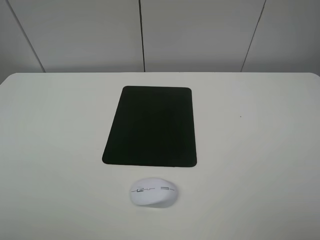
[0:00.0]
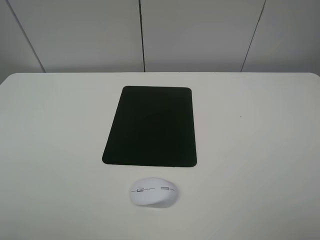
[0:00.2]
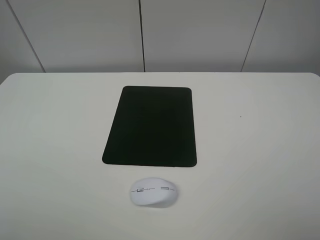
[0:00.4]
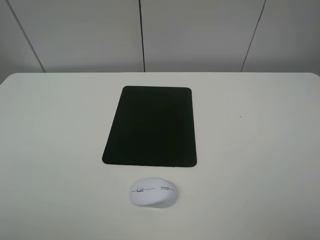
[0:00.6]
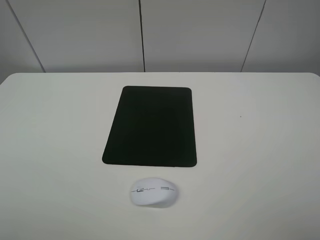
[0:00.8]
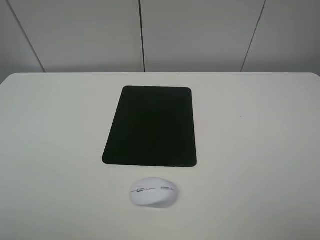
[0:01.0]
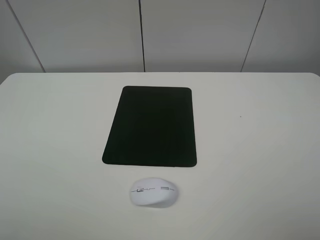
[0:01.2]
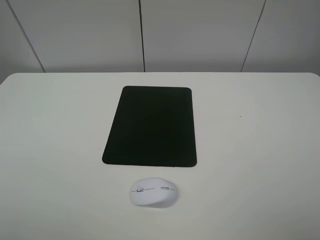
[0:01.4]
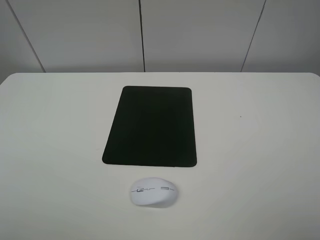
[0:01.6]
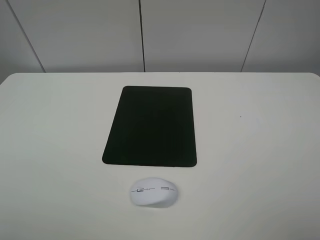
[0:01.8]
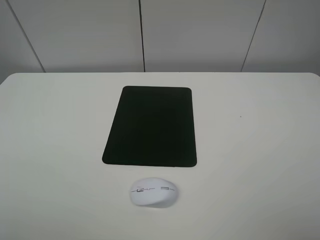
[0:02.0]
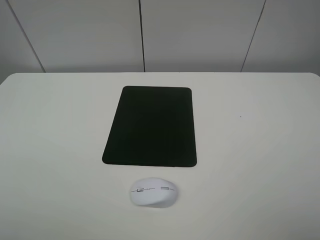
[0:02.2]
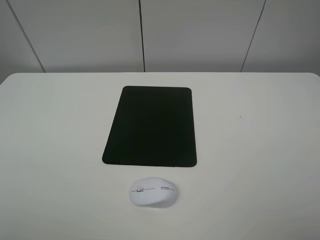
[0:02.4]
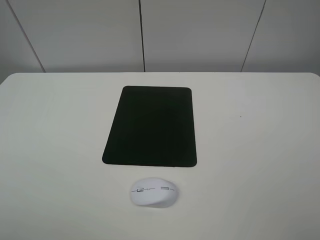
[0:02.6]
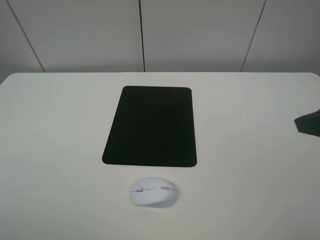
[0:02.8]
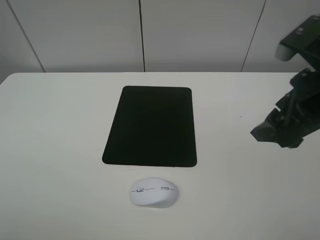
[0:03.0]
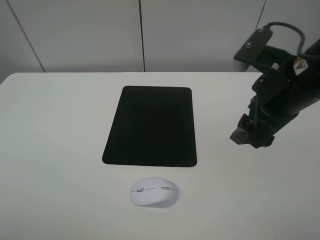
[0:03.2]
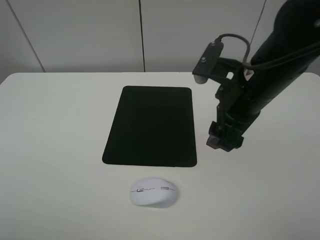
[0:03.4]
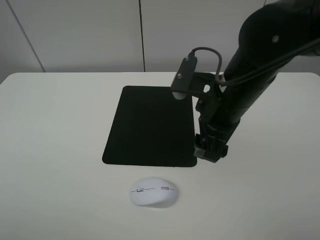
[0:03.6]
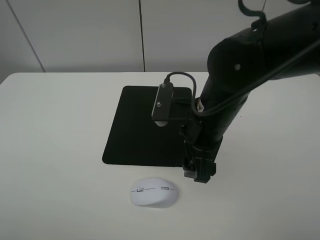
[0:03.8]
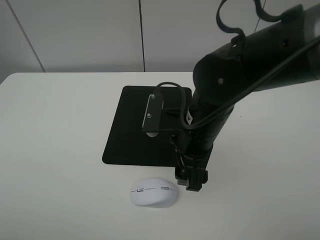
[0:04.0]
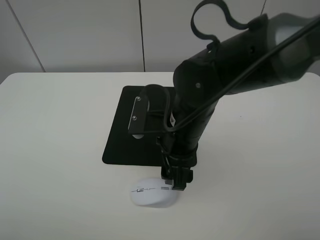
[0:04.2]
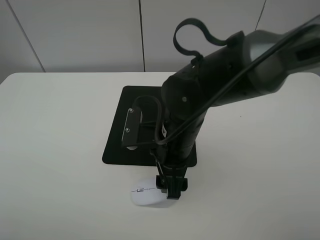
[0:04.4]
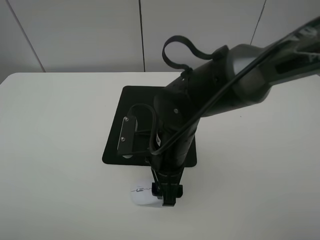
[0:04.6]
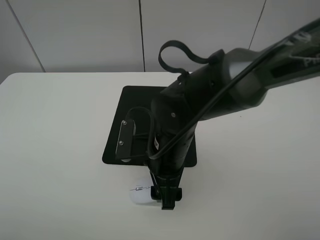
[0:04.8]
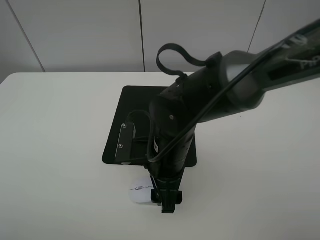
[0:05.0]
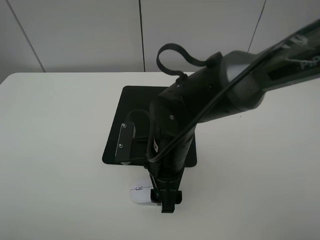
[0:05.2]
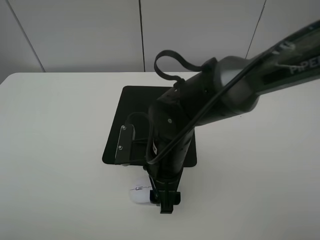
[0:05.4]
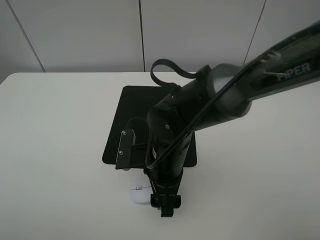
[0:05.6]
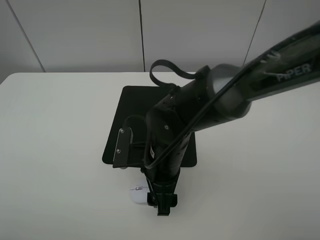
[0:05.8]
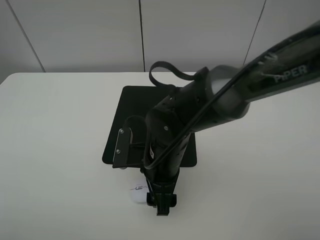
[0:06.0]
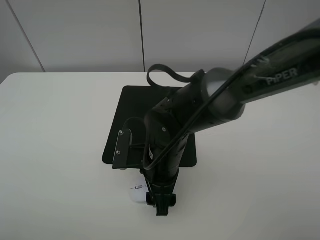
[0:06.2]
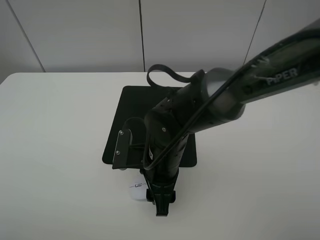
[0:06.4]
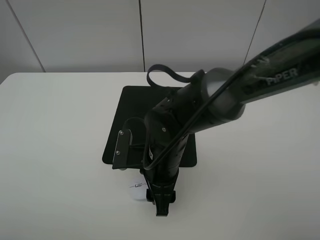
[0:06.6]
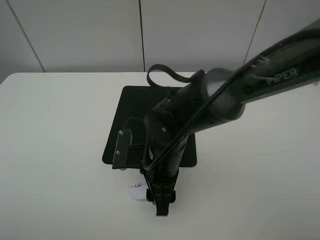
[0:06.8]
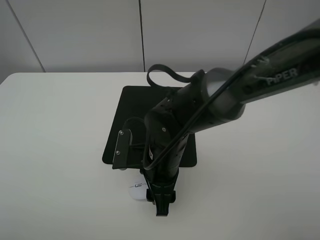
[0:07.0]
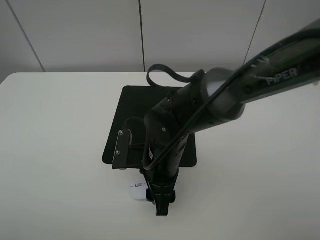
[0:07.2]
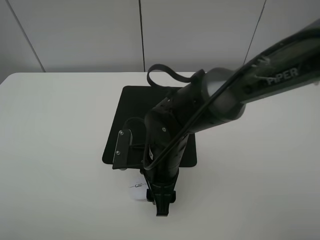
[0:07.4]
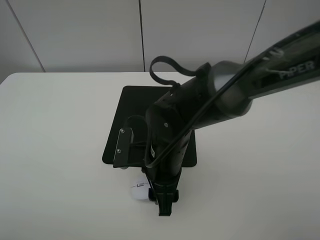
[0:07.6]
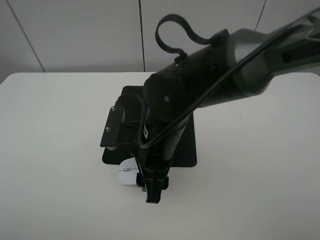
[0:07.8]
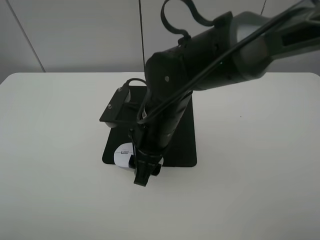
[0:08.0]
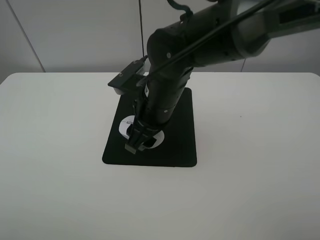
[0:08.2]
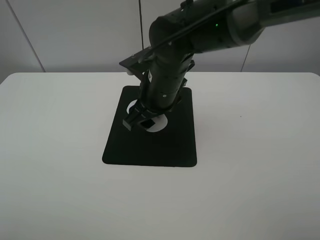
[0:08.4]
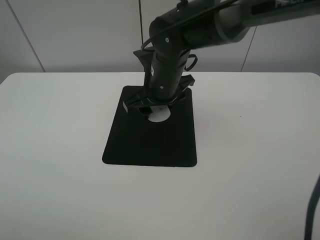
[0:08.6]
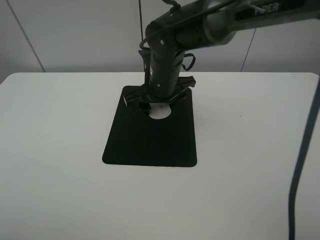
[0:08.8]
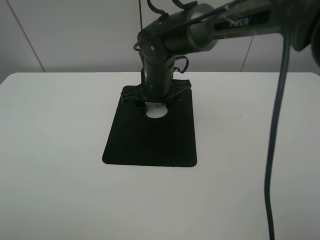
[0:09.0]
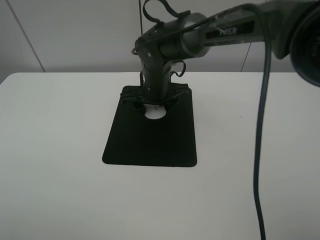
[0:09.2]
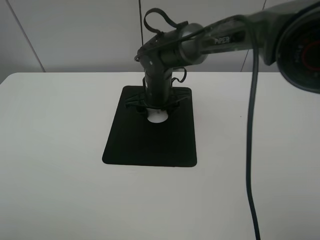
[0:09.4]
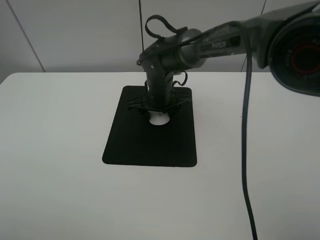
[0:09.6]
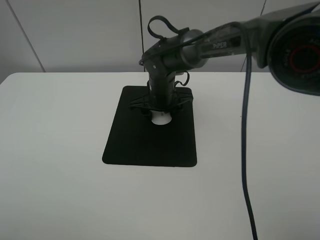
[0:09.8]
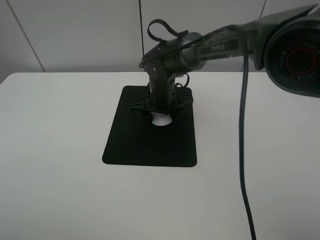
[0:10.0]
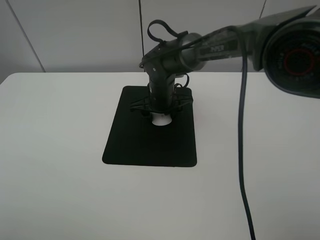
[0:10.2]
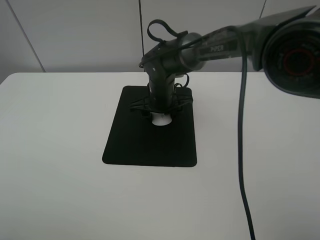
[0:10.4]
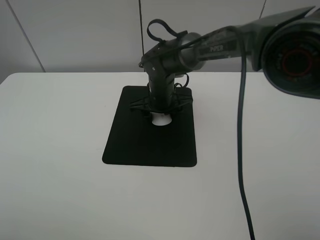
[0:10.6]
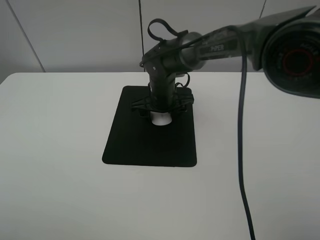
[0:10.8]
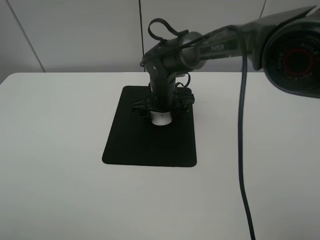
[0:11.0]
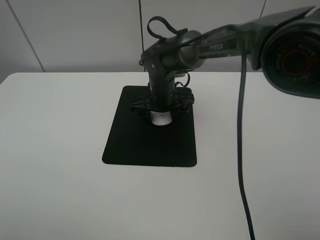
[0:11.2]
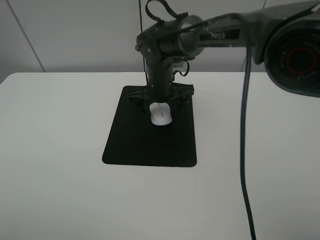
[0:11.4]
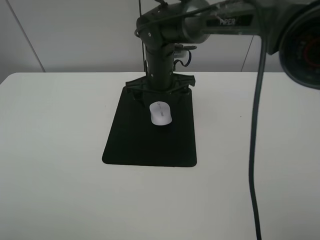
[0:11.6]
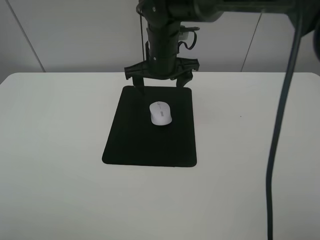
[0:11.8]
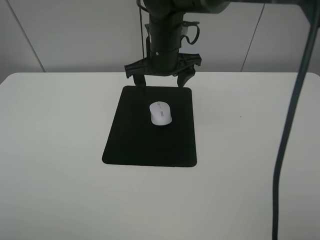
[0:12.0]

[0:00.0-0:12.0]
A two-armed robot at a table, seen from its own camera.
Step, 0:00.0 to 0:07.0: Grasp the mouse with the right gripper.
Step, 0:07.2 to 0:10.8: Place the mouse on the mouse mat with the right gripper.
0:00.0 to 0:01.6: Both grippers stay about where they are.
0:01.6 to 0:03.0: The right gripper is displaced forward and to the left by approximately 20 cm.
0:03.0 to 0:04.4: The right gripper travels to the left and downward by some 20 cm.
0:04.4 to 0:06.0: The grippers stay close to where they were, moving slightly.
0:06.0 to 0:07.6: The right gripper closes up.
0:07.6 to 0:09.0: The right gripper moves forward, approximately 15 cm.
0:09.0 to 0:10.4: The right gripper travels downward by roughly 5 cm.
0:10.4 to 0:12.0: The right gripper goes about 10 cm upward, and opens up.

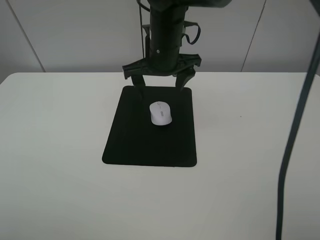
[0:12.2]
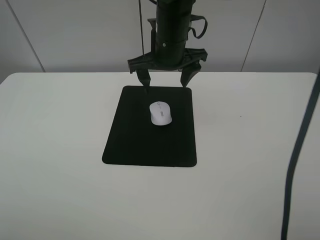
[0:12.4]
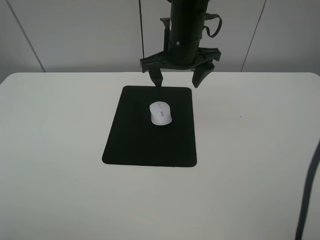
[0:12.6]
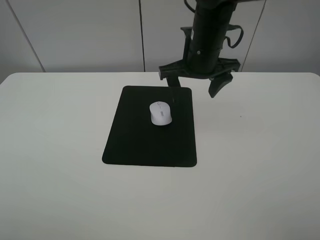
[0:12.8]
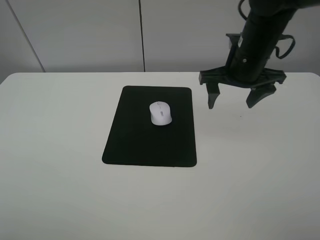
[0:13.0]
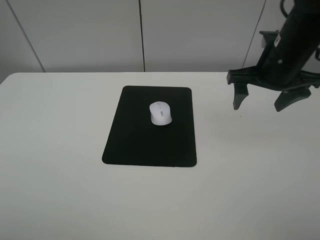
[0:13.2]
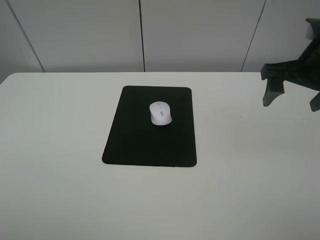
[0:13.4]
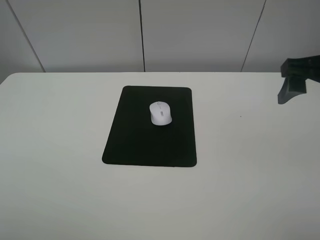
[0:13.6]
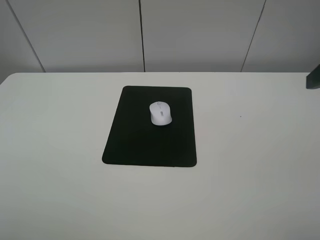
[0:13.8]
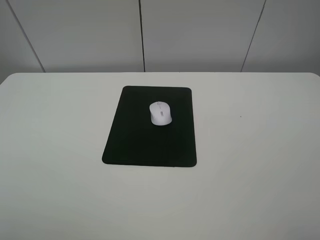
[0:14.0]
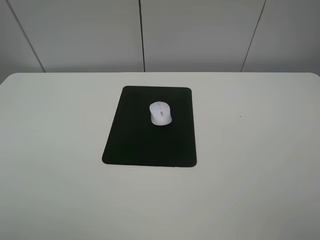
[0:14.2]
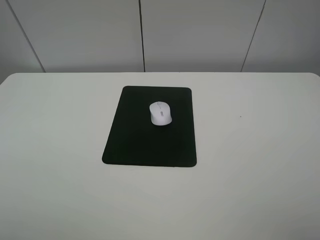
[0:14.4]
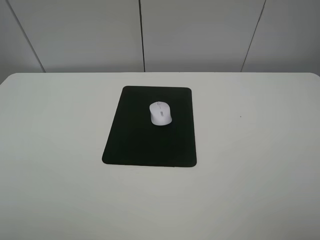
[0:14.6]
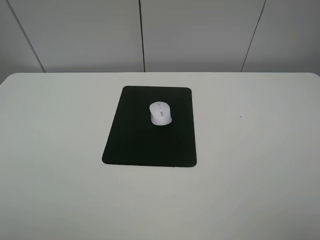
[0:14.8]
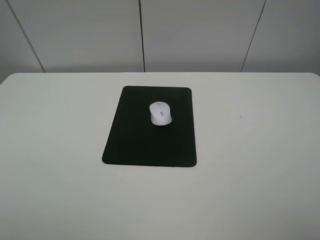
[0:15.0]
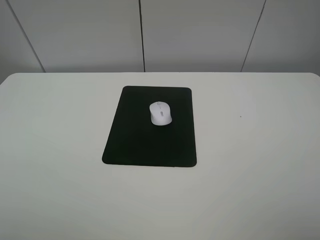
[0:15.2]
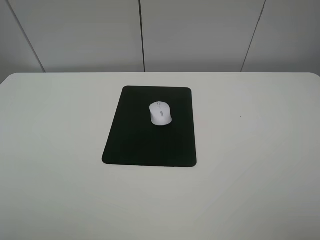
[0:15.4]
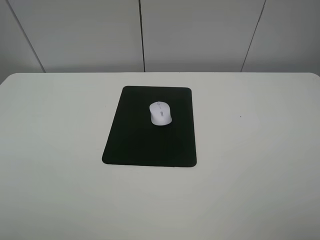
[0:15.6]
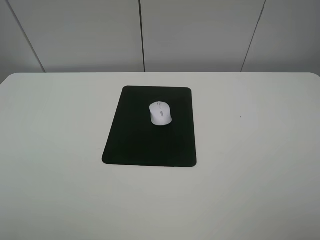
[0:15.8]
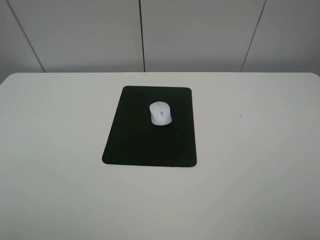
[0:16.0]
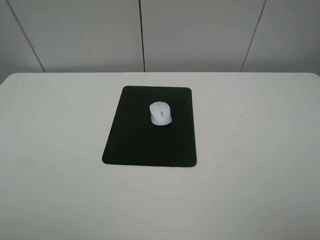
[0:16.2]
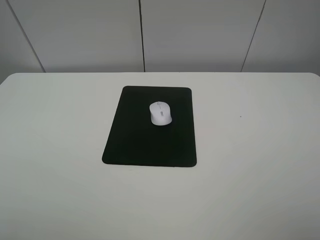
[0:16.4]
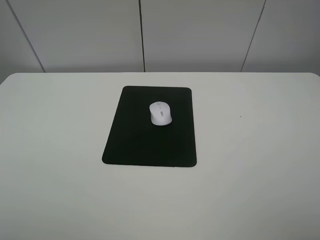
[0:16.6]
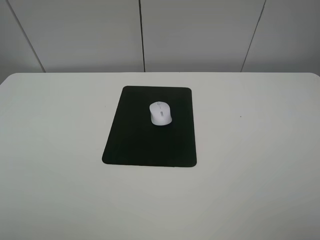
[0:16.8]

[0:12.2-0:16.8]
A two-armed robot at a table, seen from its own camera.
0:12.2 to 0:13.8: The right gripper heads to the right, backward and upward, covering approximately 35 cm.
